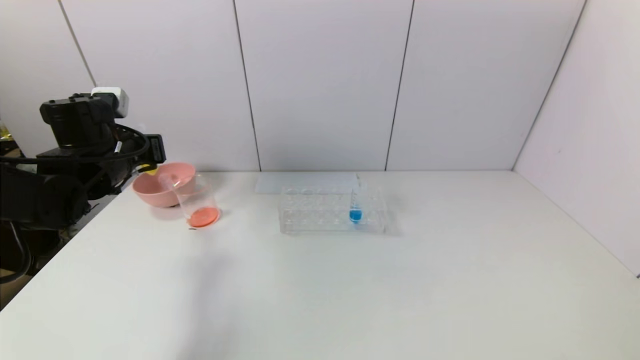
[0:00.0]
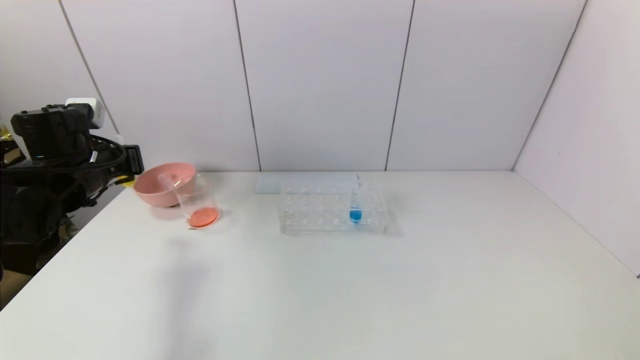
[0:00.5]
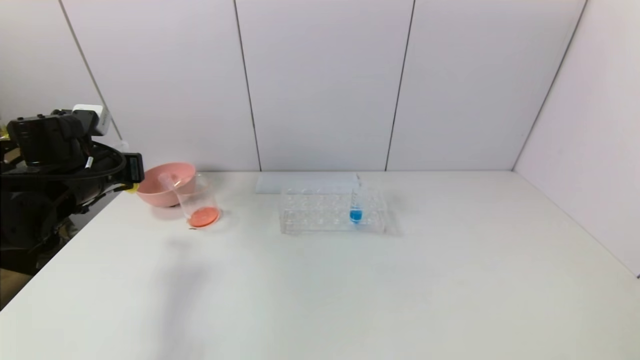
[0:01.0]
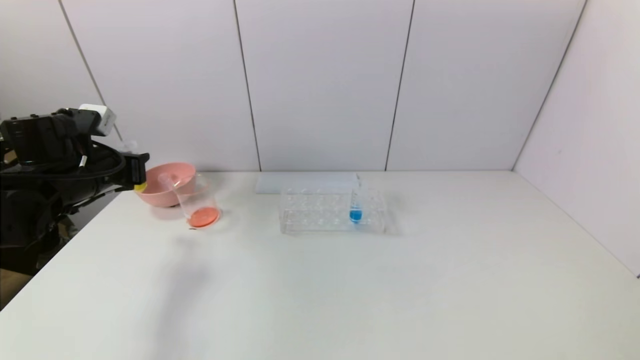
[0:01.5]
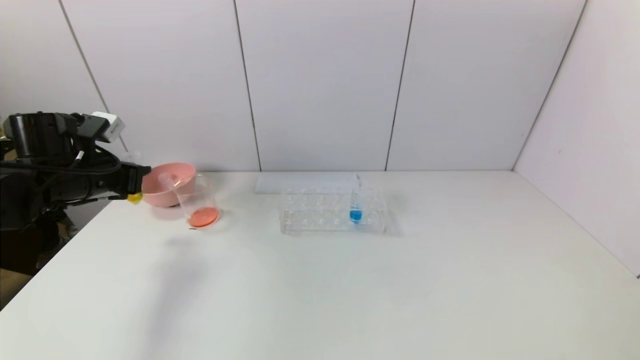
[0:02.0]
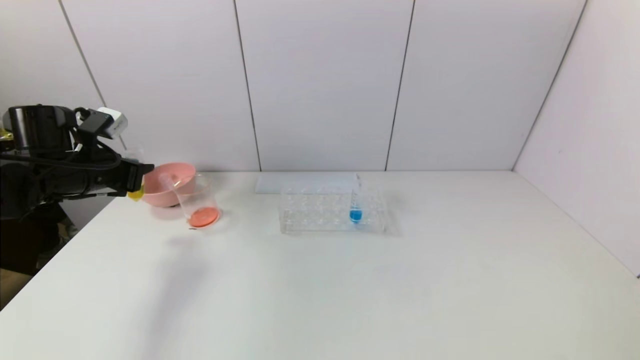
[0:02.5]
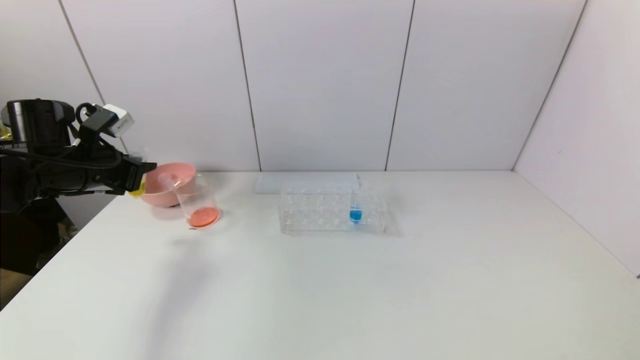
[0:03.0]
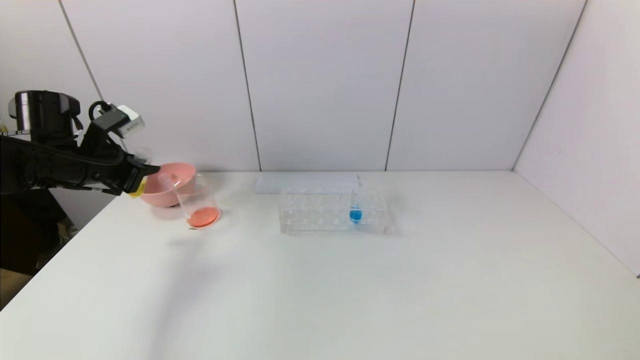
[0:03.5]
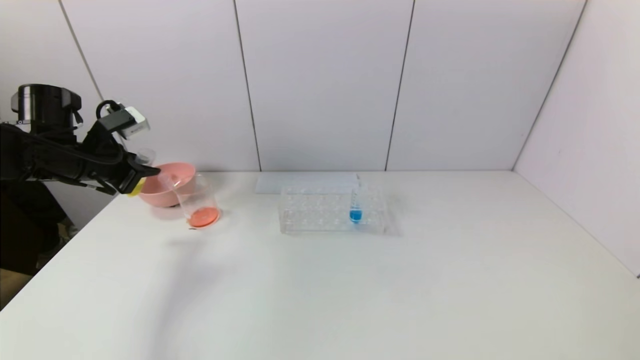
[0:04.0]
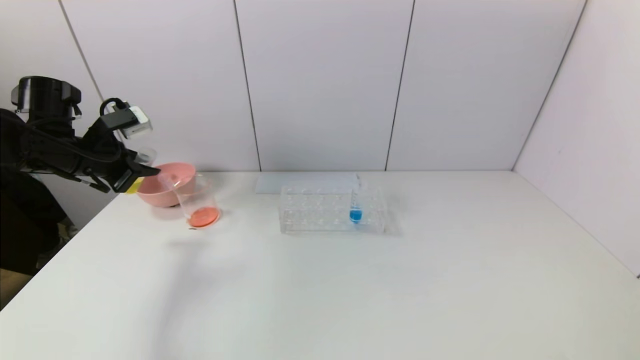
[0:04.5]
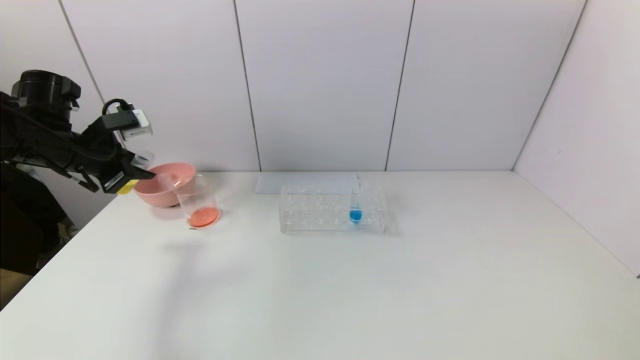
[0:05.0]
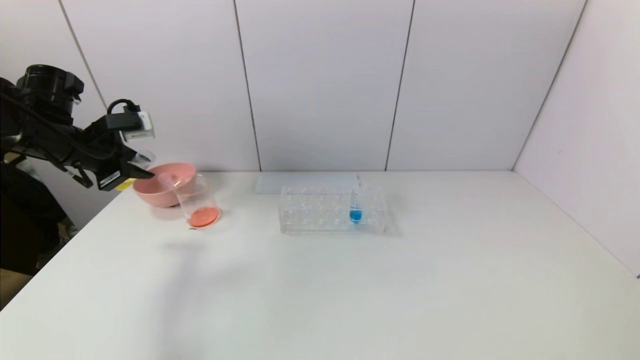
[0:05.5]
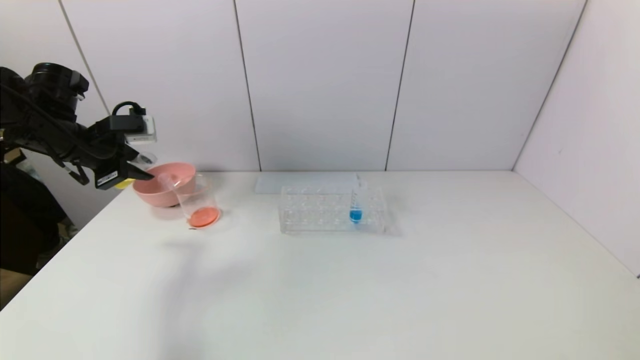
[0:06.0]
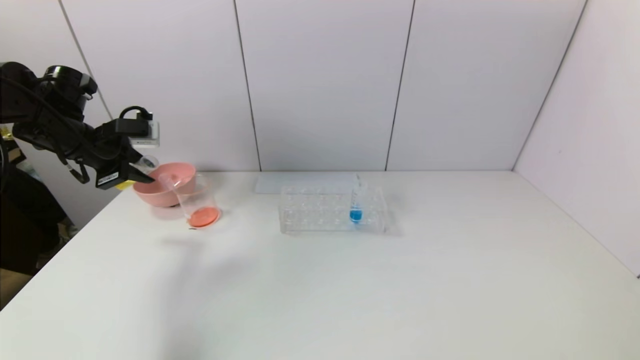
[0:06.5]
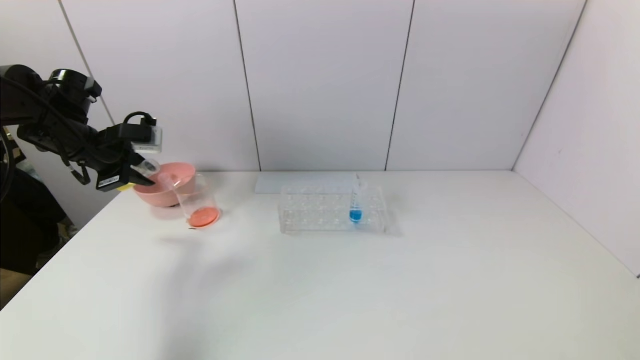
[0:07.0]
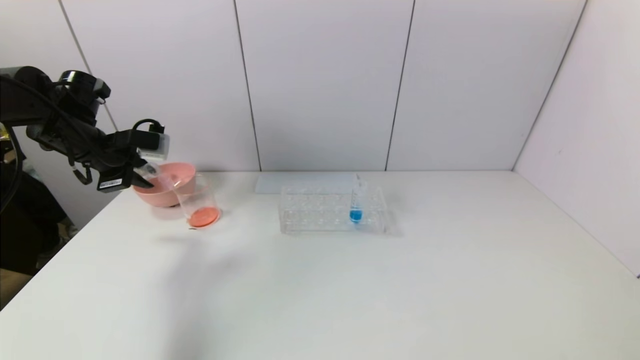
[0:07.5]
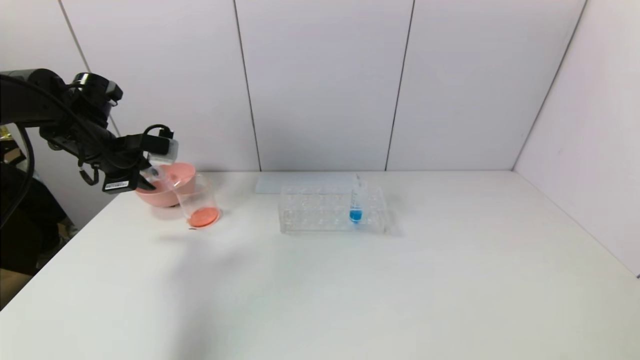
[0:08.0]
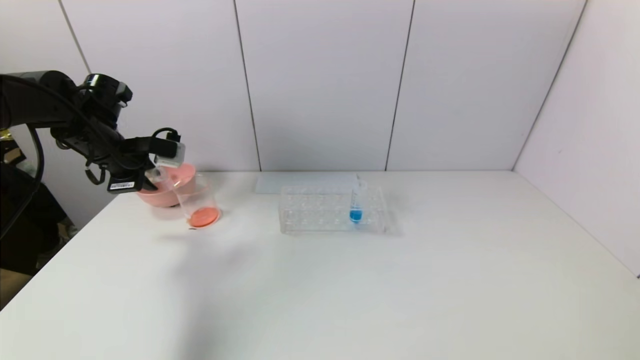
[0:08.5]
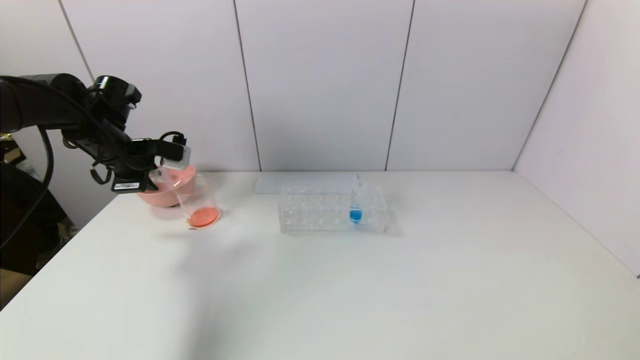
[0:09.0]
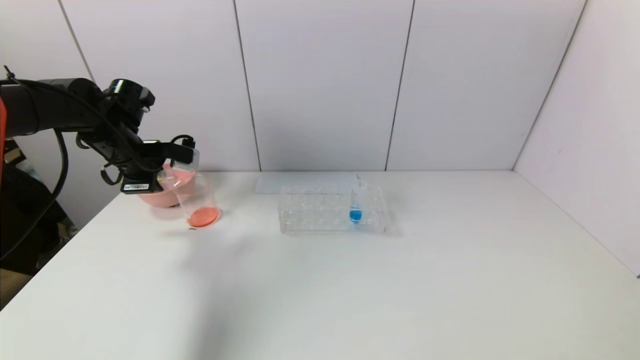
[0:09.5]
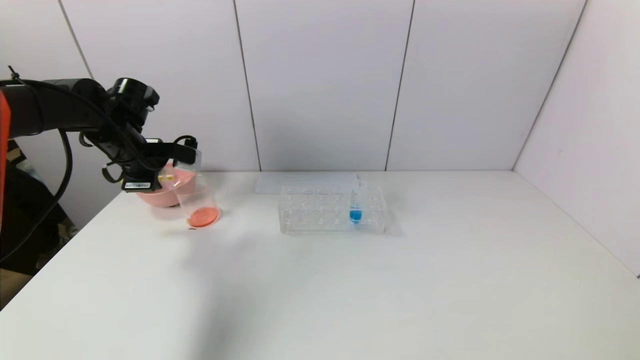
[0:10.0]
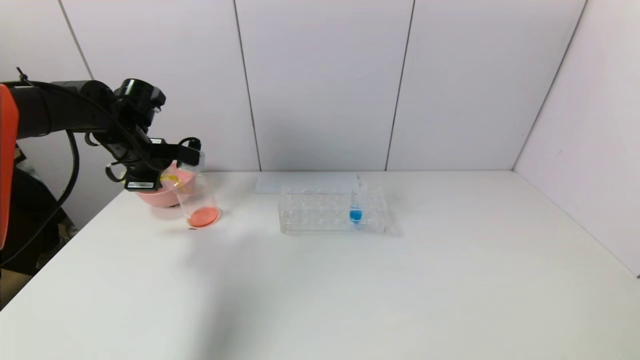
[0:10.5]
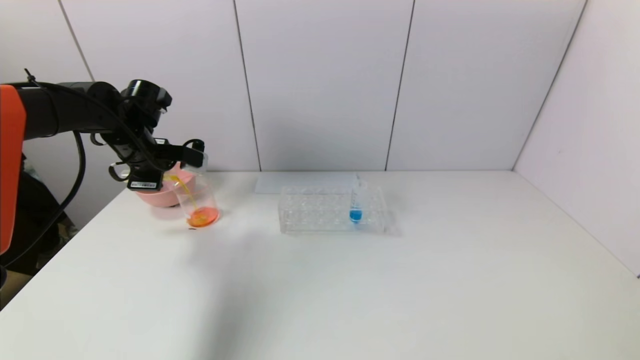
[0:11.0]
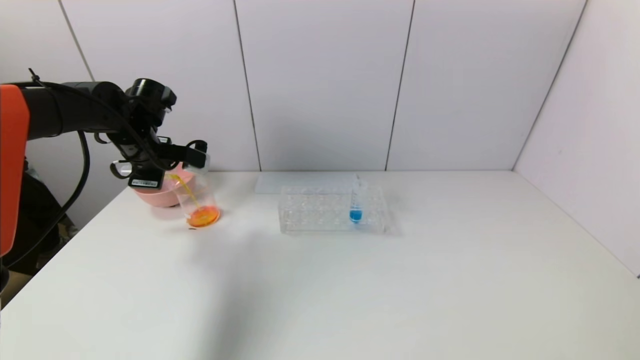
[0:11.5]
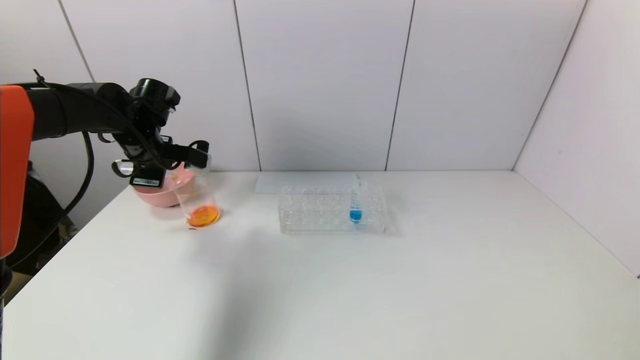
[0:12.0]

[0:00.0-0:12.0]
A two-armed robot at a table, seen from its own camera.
Task of the whole recording: pick up the test tube with yellow pigment and the test tube with red pigment by grippers and pour them into the beaker.
0:00.0 to 0:02.0: The left gripper changes place by roughly 5 cm.
0:06.0 to 0:08.0: The grippers make only small movements.
0:08.0 to 0:10.0: The grippers make only small movements.
0:10.0 to 0:12.0: The grippers move only a little.

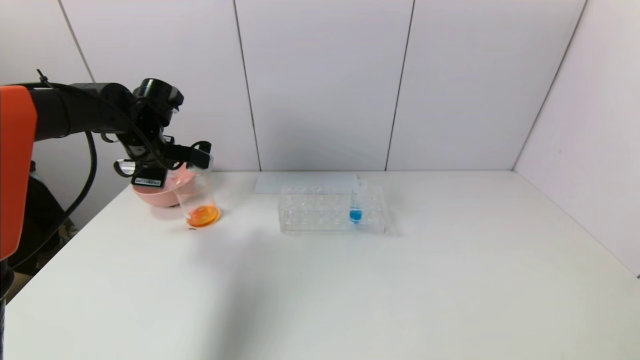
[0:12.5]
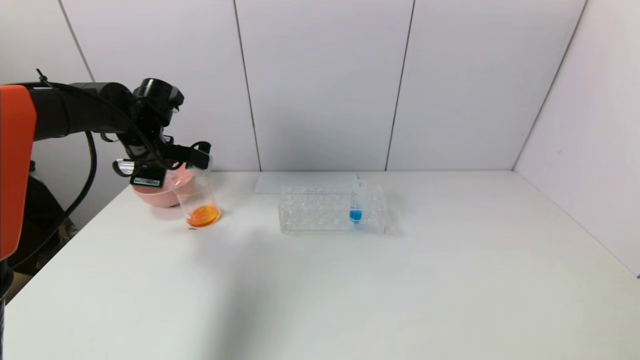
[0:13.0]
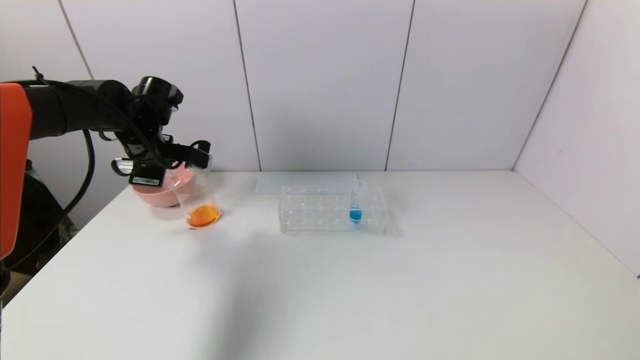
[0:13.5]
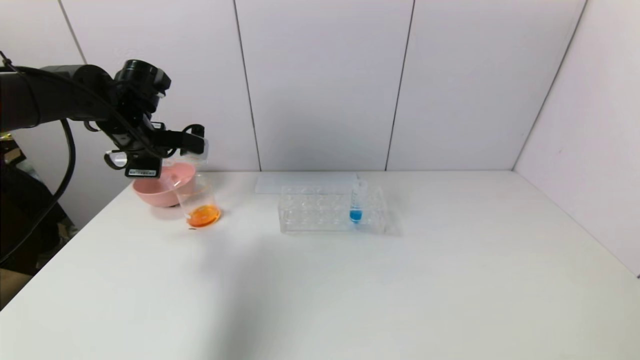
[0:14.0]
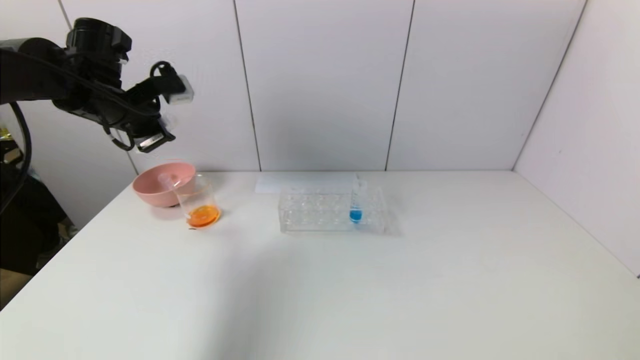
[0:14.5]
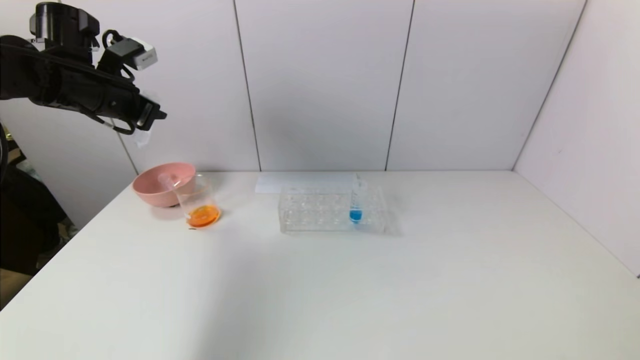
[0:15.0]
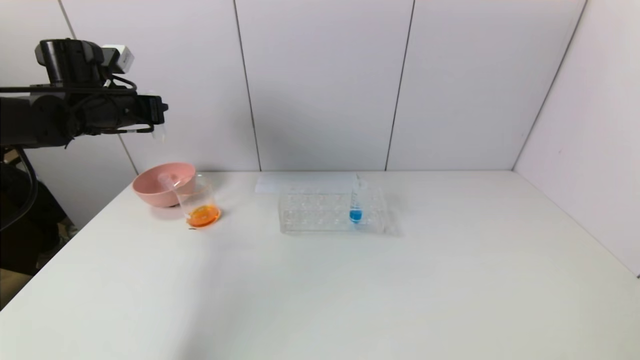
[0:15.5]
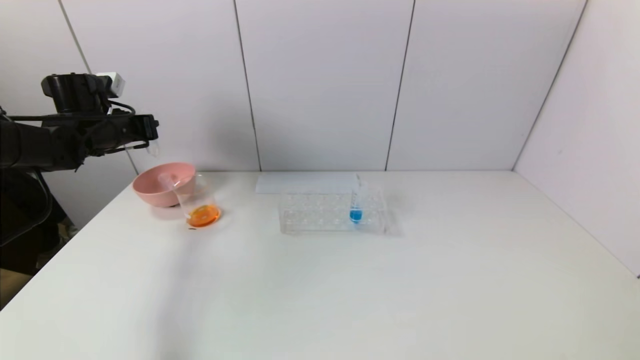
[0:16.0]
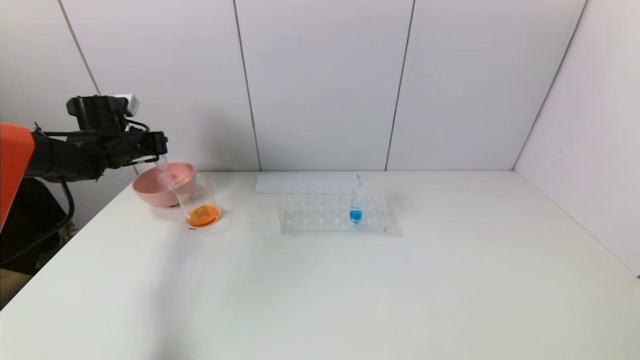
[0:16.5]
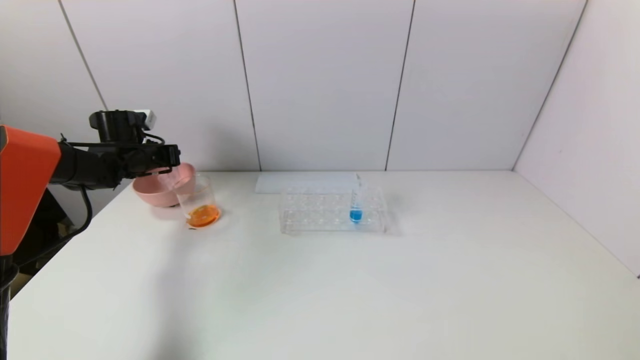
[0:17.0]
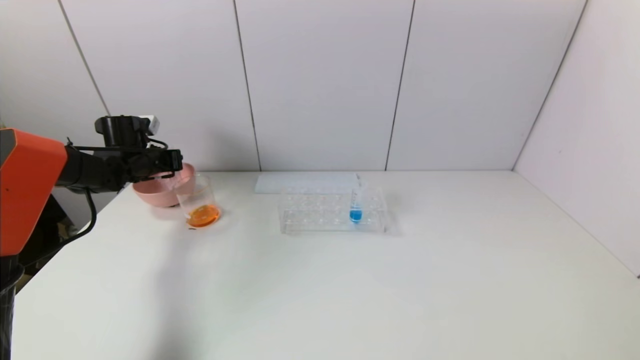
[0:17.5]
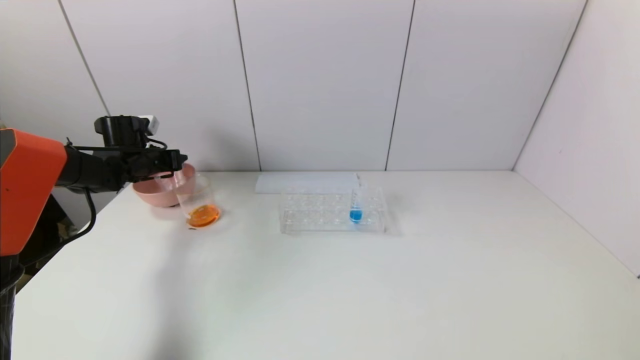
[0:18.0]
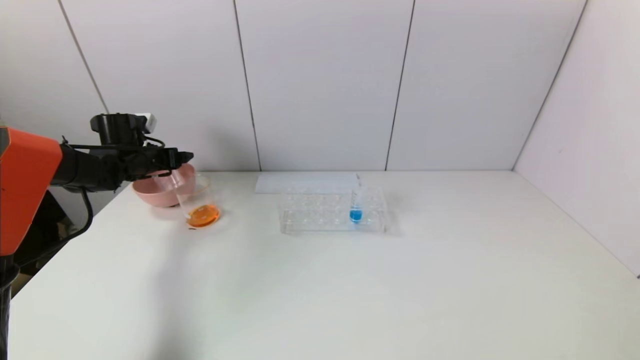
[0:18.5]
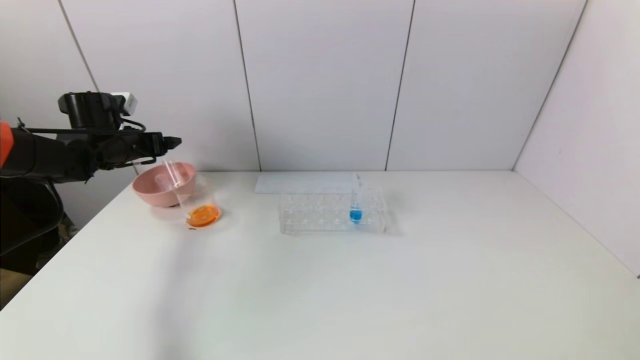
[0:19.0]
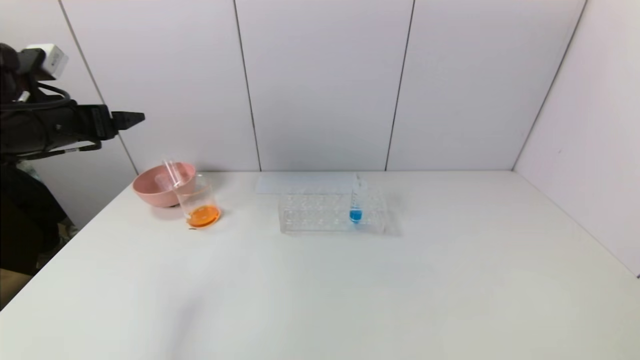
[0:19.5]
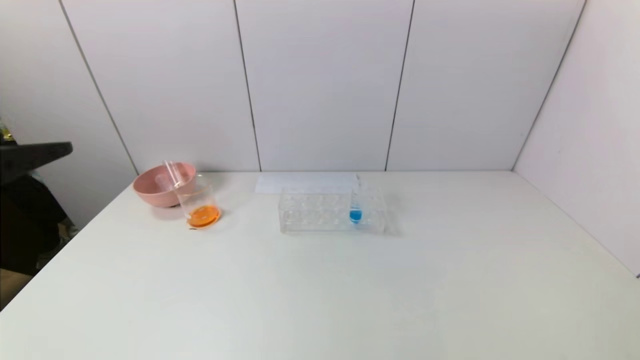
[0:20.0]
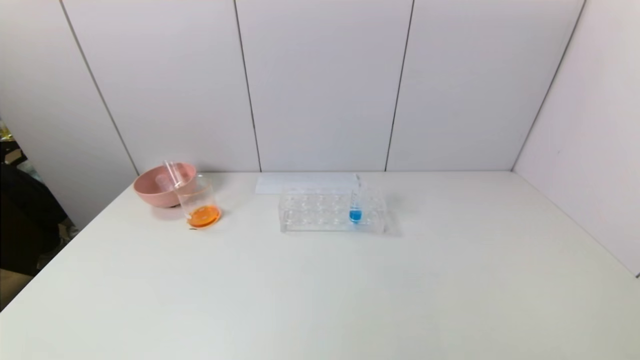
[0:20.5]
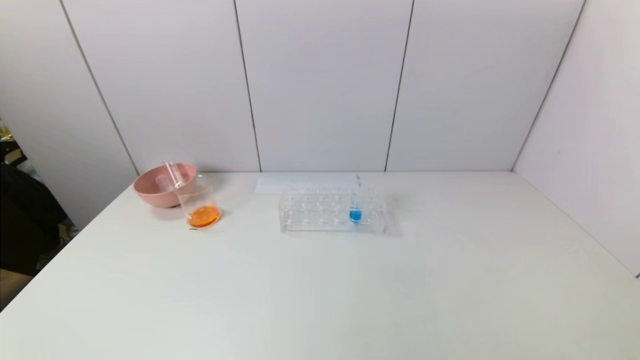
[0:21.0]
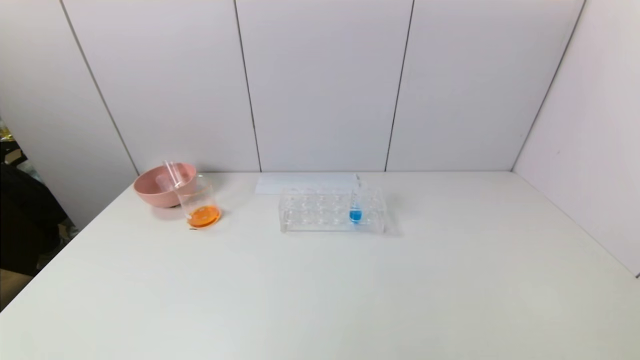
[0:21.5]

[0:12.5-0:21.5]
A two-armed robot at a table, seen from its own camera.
Task of the whole recording: pick up the test tube with yellow pigment and the test tube with red pigment by grippers and pour them into the beaker.
Step, 0:14.0 to 0:18.0: Place the test tube into the pink bowl with the left gripper.
0:12.5 to 0:14.5: The left gripper is displaced upward by about 10 cm.
0:14.5 to 0:17.0: The left gripper shifts roughly 20 cm downward, forward and to the left.
0:17.0 to 0:19.5: The left gripper goes some 20 cm backward and upward, and opens its fingers.
0:19.5 to 0:21.5: The left gripper goes approximately 30 cm backward.
